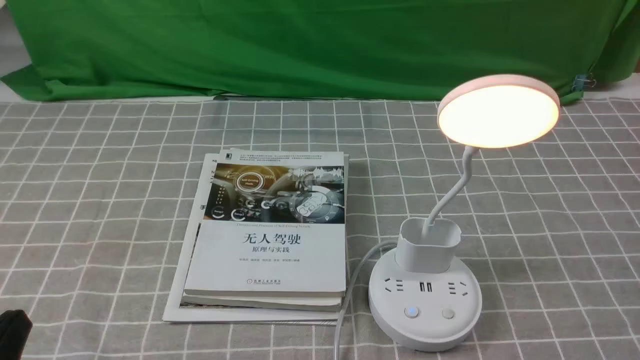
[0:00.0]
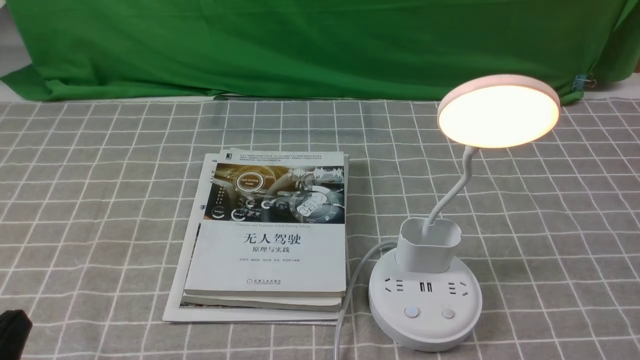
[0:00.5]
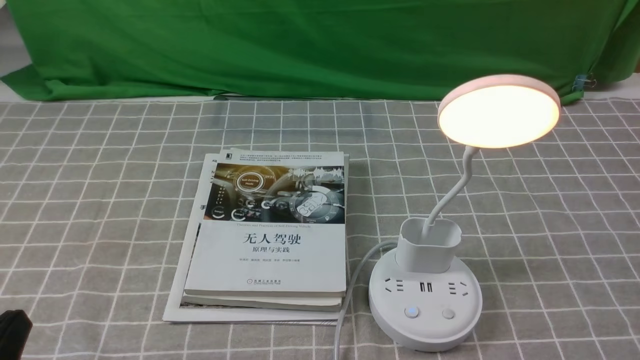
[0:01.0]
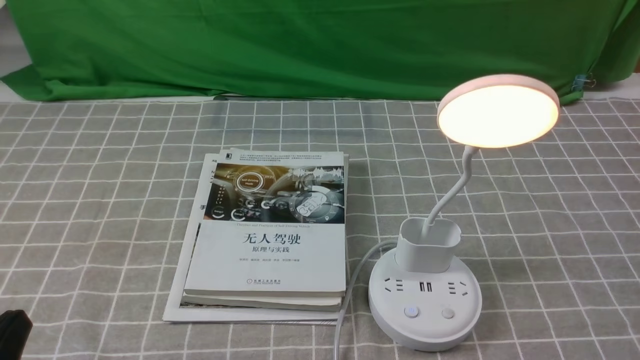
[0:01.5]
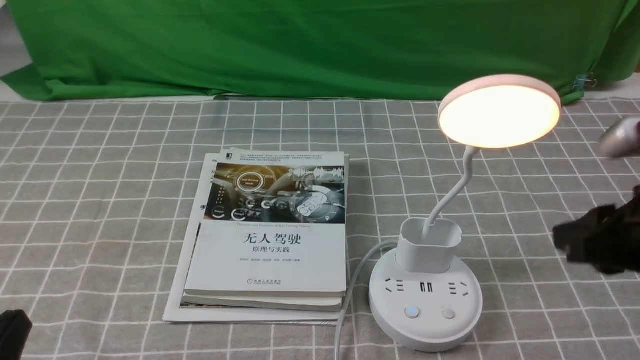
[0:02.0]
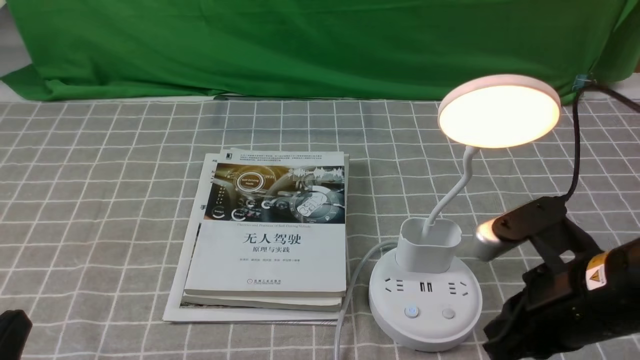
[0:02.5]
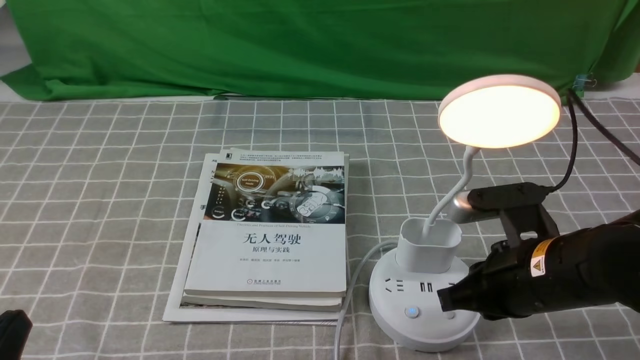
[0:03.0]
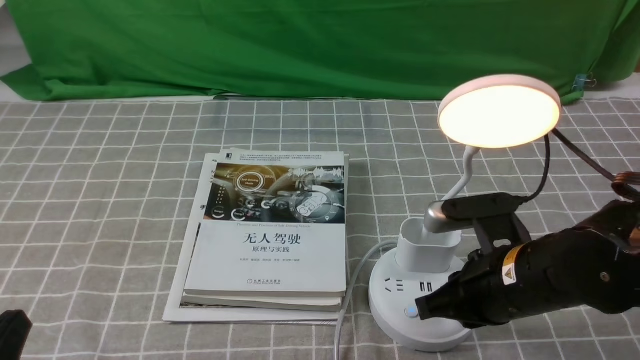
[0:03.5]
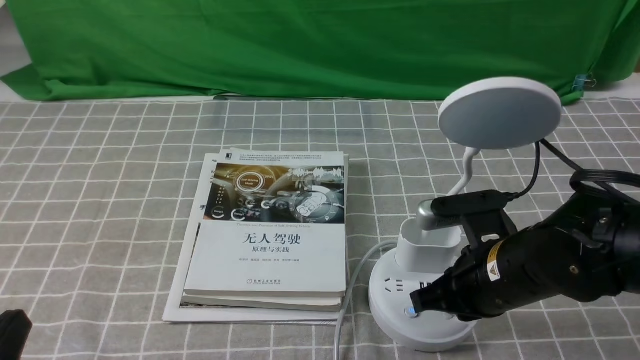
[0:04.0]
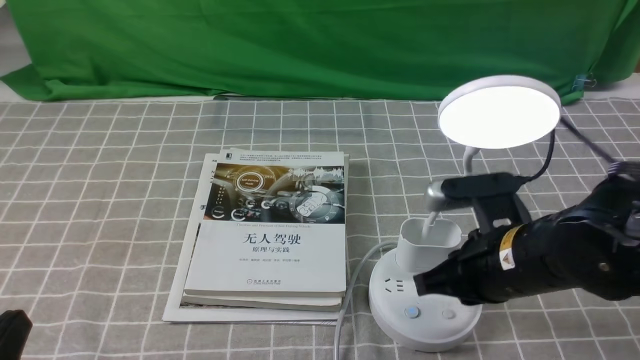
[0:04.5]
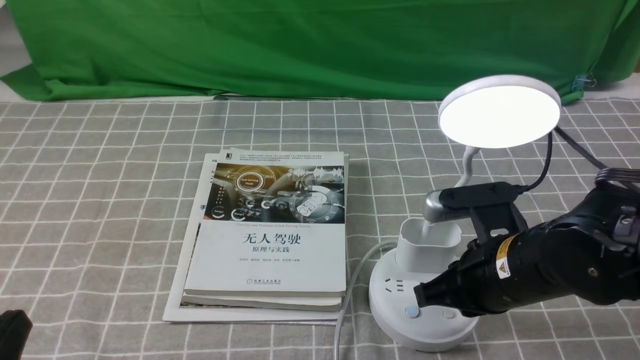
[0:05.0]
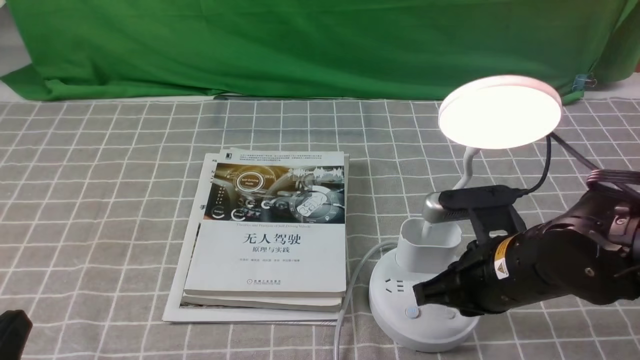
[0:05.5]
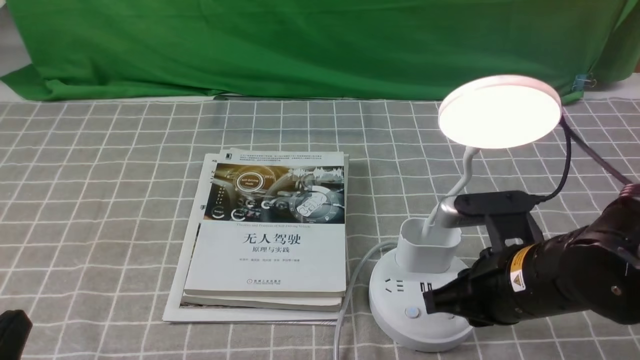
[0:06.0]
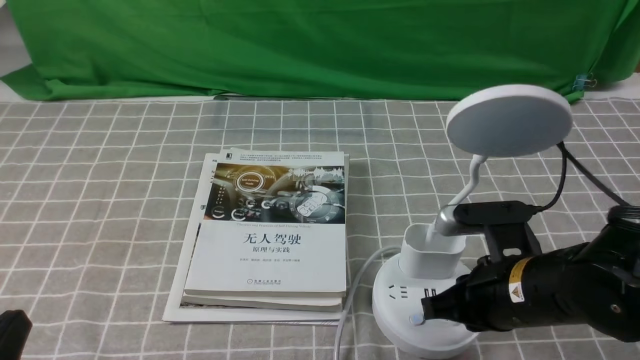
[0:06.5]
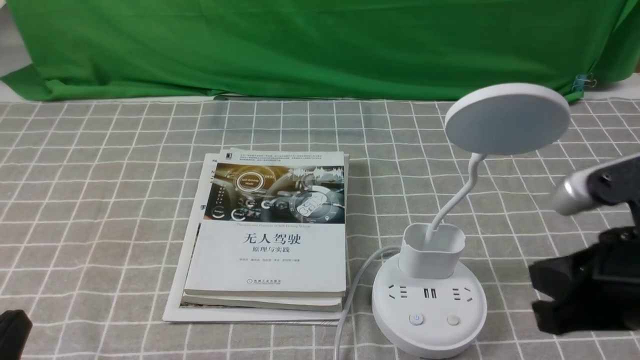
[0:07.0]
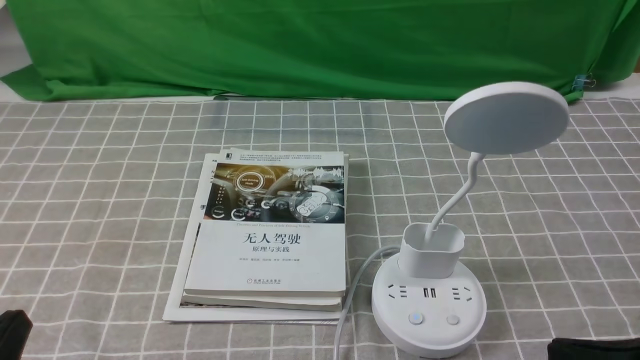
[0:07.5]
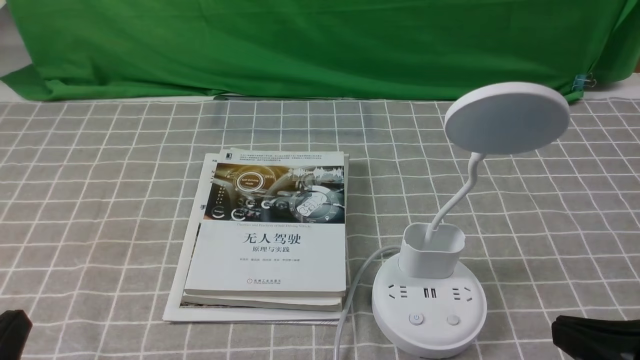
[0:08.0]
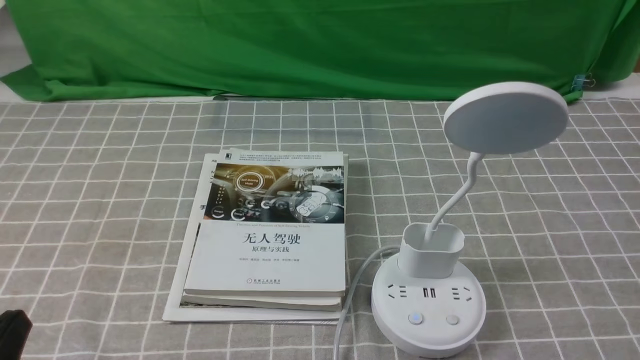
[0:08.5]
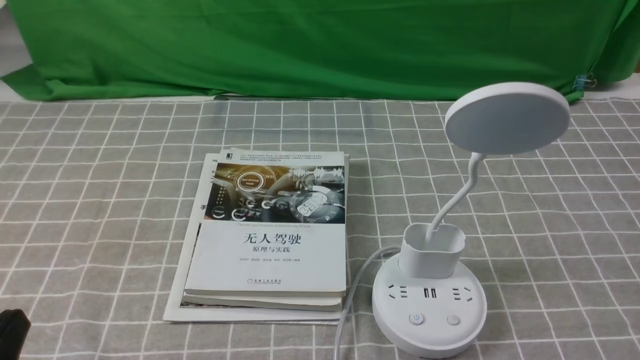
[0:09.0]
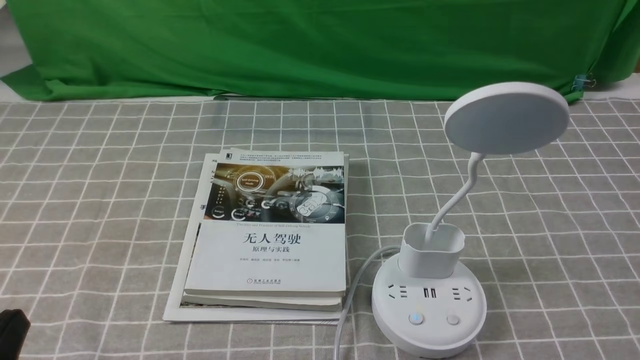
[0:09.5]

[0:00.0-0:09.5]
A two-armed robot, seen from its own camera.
Task of the whole recording: turn off the desk lamp on the grey coffee tablecloth by hand.
Step, 0:00.0 to 0:06.5: use the right arm to press the button switch on the lamp holder.
0:00.0 to 0:02.0: The right gripper goes about 15 cm forward and upward.
0:02.0 to 0:04.0: The right gripper is displaced to the left and downward by about 15 cm, and closes up.
0:04.0 to 0:05.5: The grippers make only small movements.
0:05.5 to 0:07.5: The right gripper is displaced backward, to the right and upward by some 20 cm.
0:07.5 to 0:09.5: The right gripper shifts about 10 cm to the right and downward, and opens its fingers.

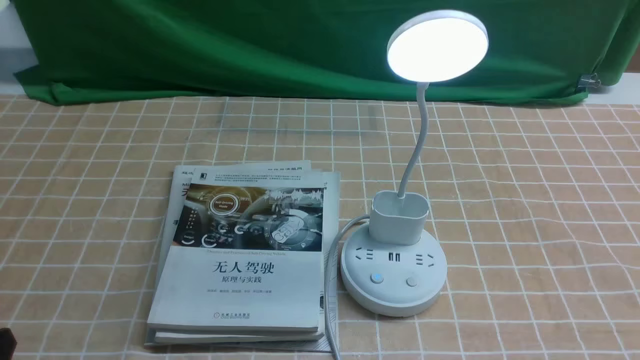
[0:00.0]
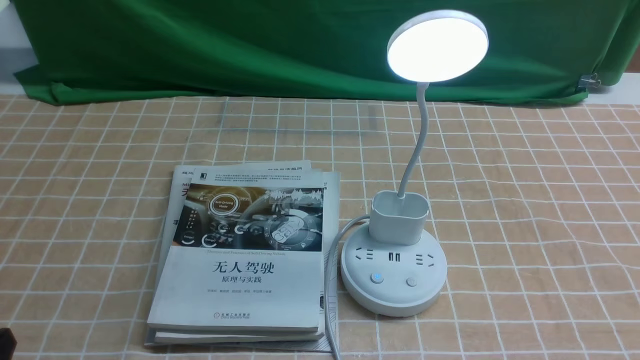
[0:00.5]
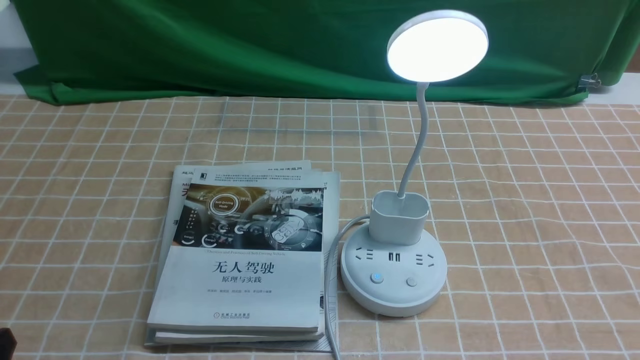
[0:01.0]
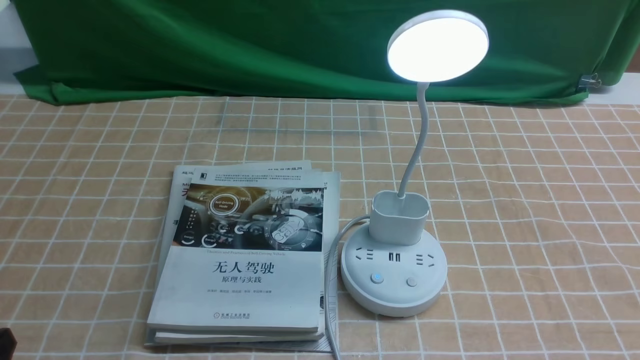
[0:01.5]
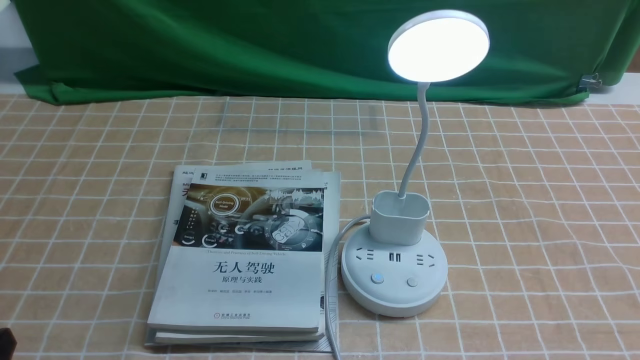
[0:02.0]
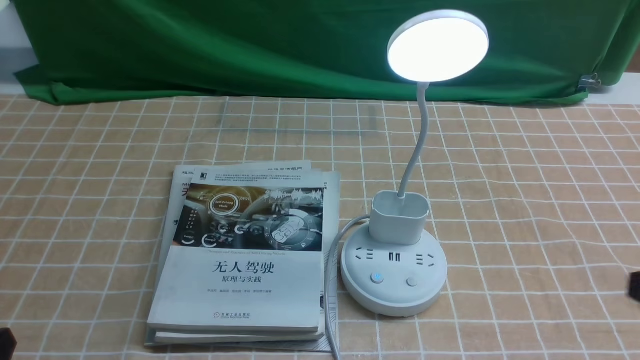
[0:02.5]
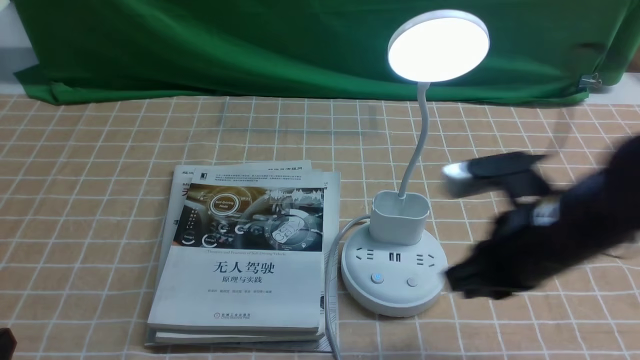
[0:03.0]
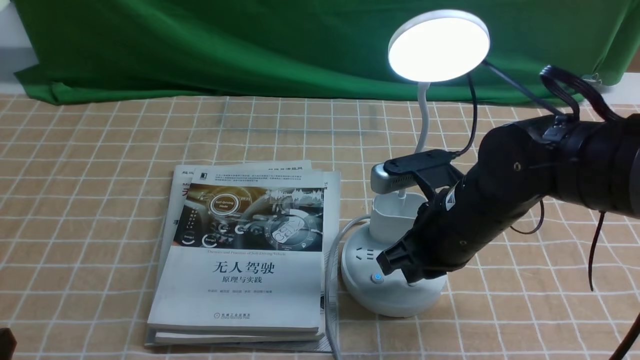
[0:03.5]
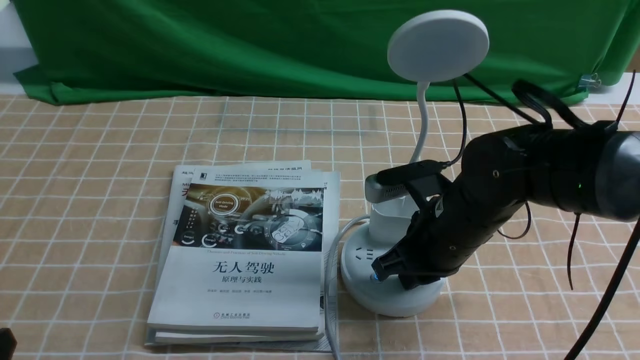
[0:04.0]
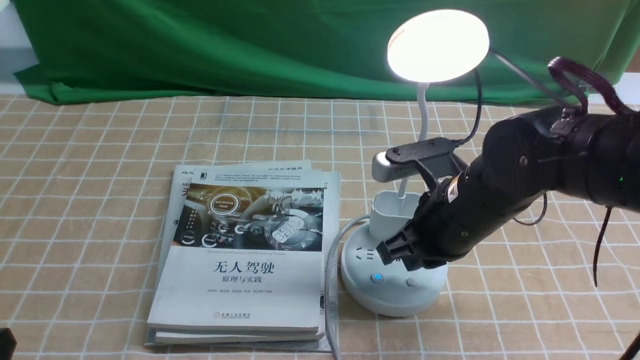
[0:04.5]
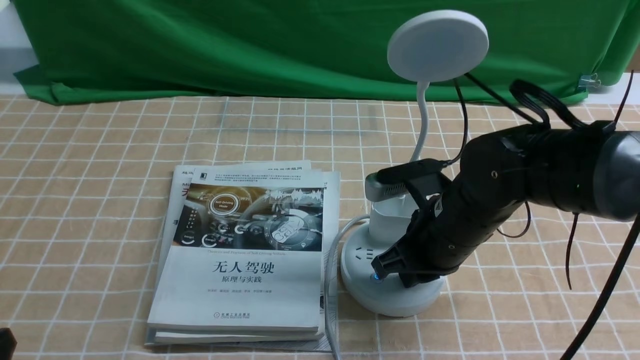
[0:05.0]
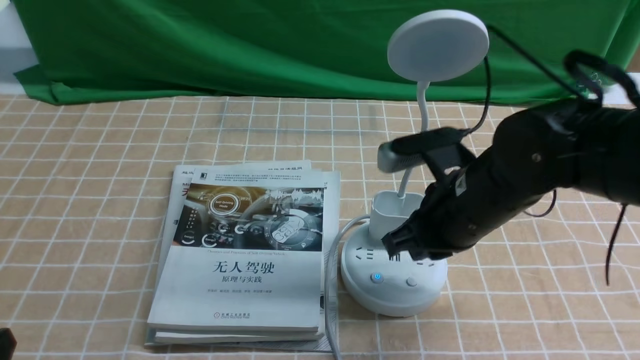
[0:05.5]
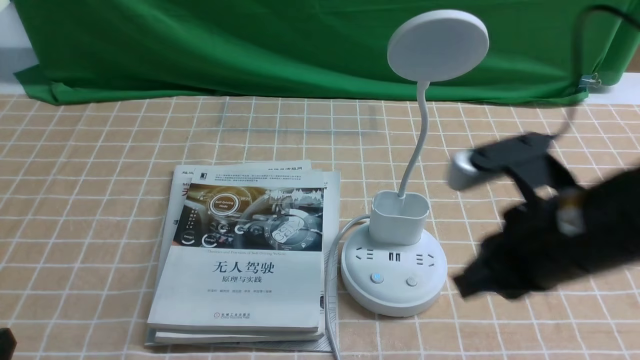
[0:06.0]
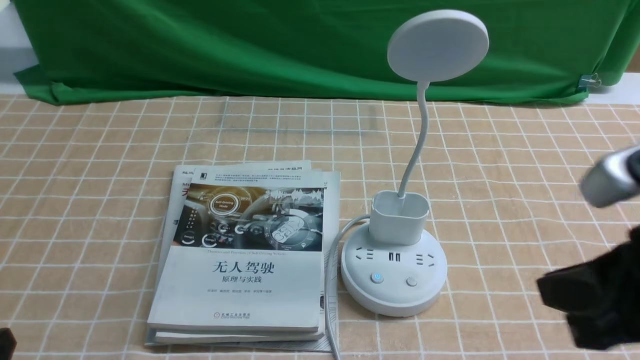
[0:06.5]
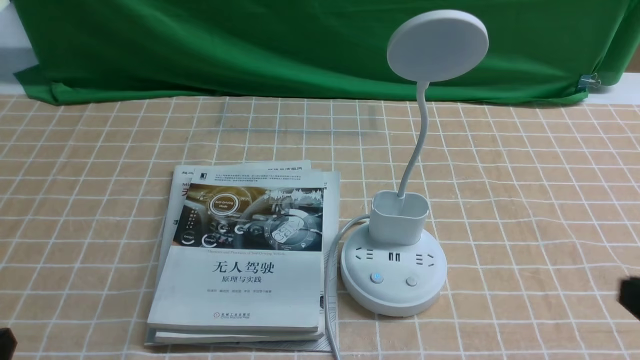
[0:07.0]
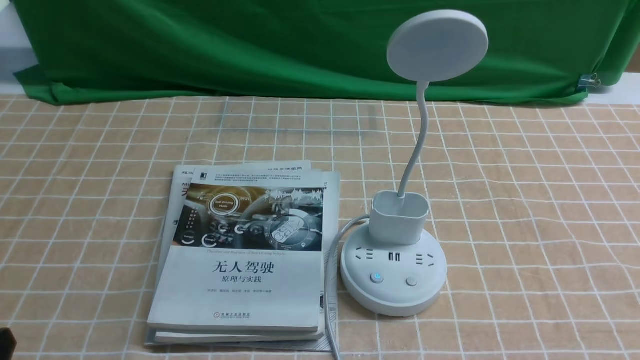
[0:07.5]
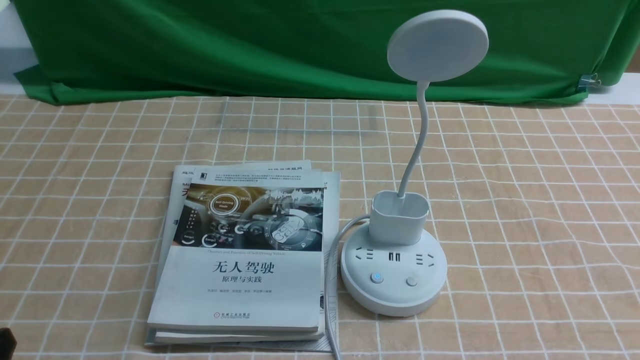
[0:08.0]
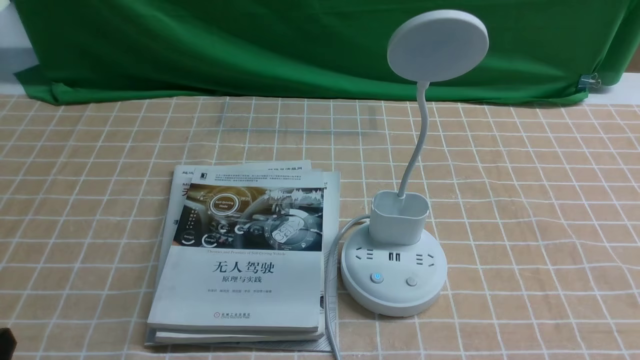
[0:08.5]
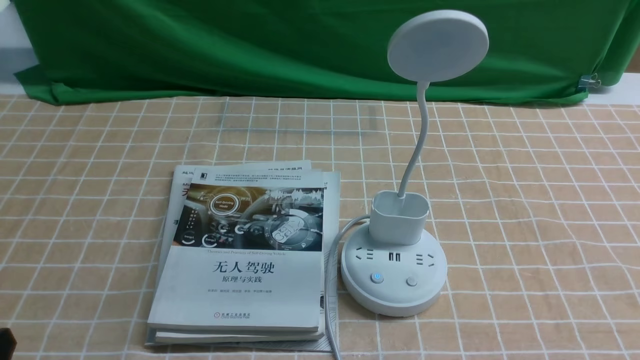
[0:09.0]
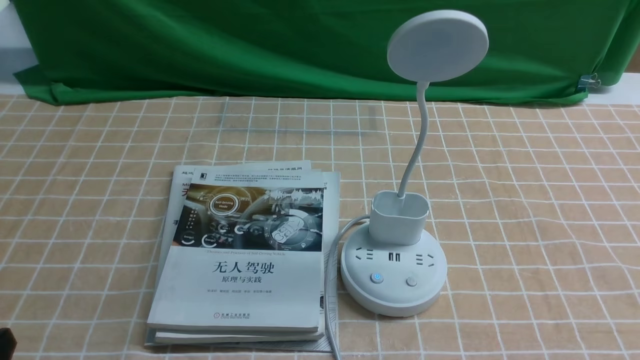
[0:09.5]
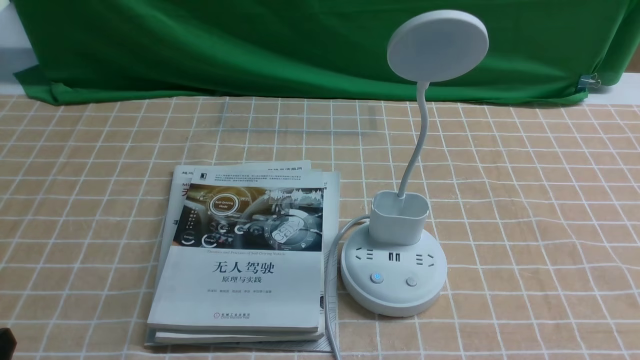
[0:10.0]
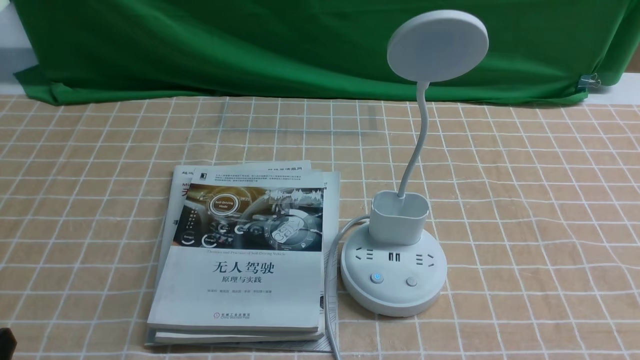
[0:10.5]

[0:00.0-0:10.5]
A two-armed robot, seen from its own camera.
Task of the whole recording: turn off the desk lamp on the light coffee tablecloth by hand.
Step, 0:00.0 to 0:05.0: use the right arm to press the button switch on the lamp holder.
0:02.0 to 0:04.0: The right gripper shifts some 30 cm forward and to the left, and closes its fingers.
0:04.0 to 0:06.5: The right gripper travels backward, upward and to the right by about 25 cm.
0:06.5 to 0:08.5: The right gripper heads downward, to the right and backward, covering about 20 cm.
